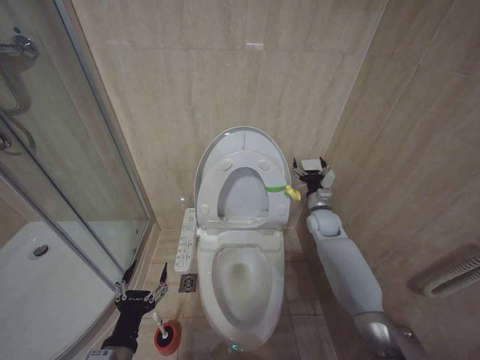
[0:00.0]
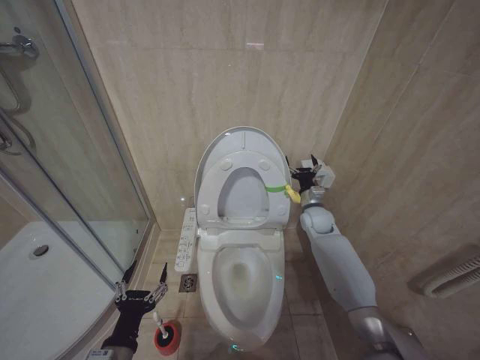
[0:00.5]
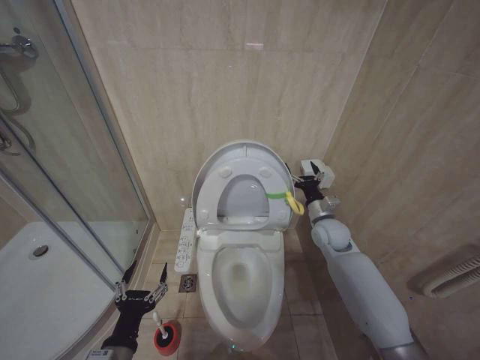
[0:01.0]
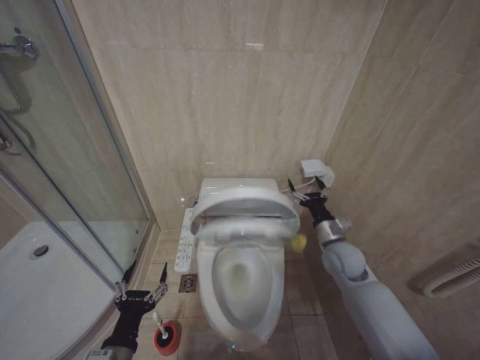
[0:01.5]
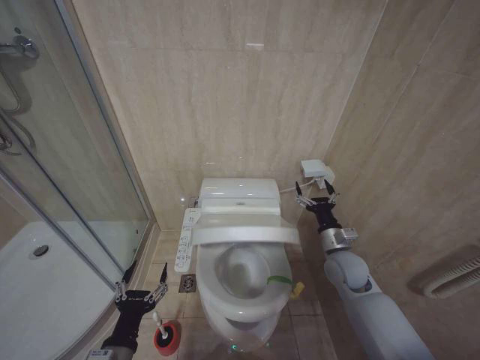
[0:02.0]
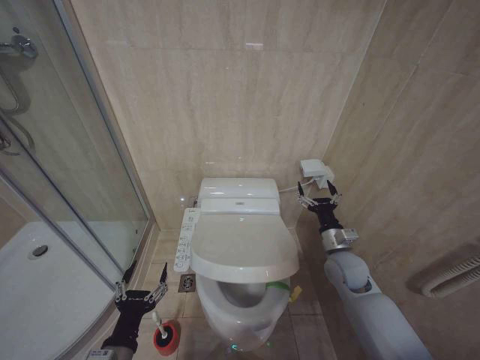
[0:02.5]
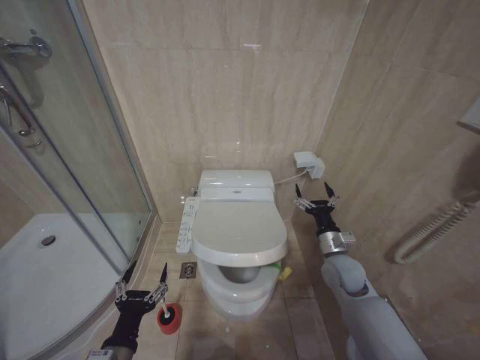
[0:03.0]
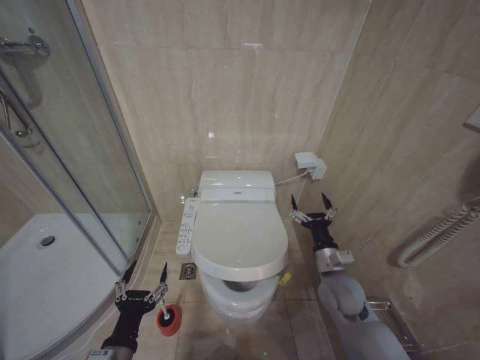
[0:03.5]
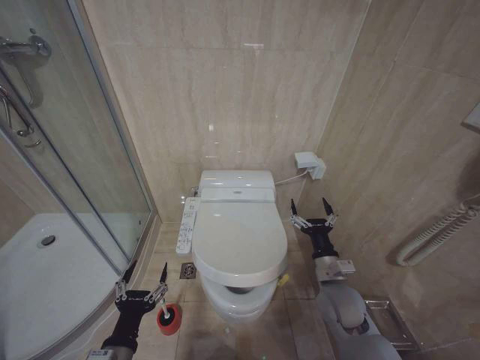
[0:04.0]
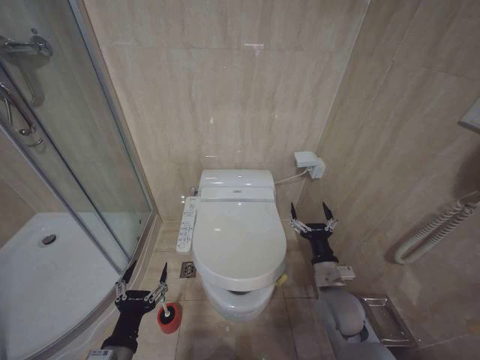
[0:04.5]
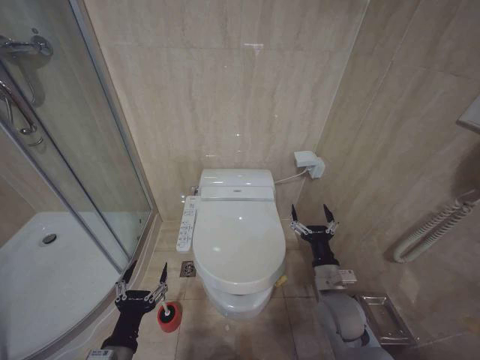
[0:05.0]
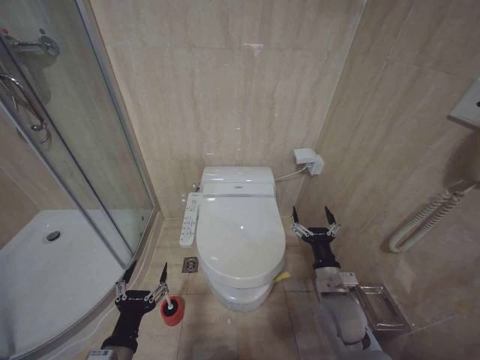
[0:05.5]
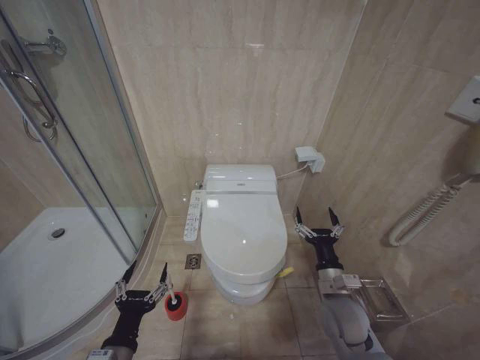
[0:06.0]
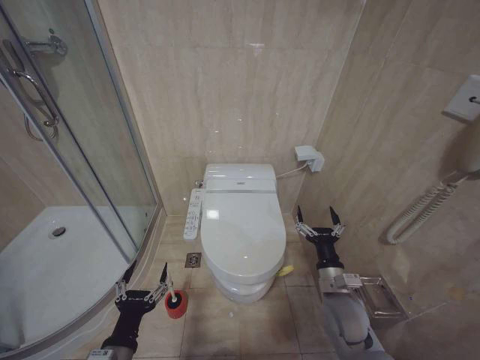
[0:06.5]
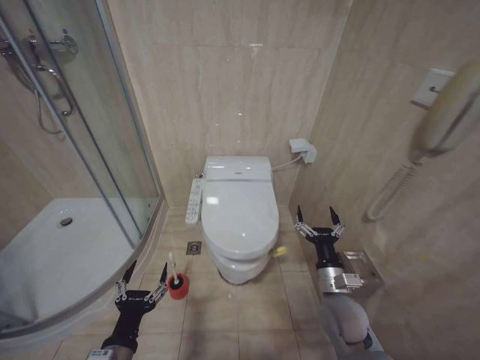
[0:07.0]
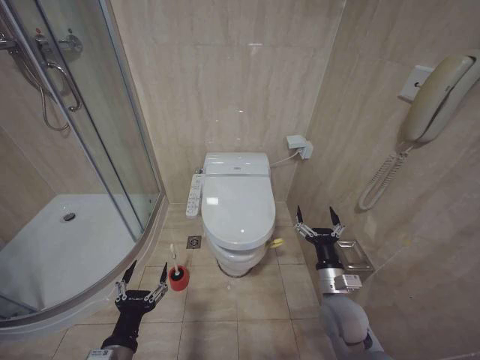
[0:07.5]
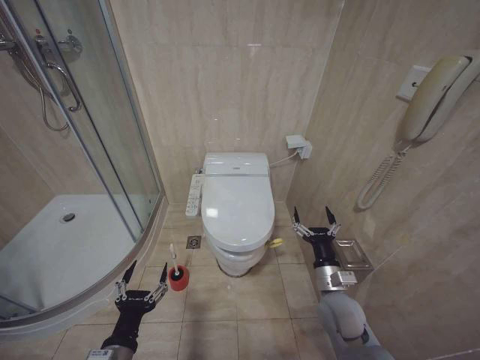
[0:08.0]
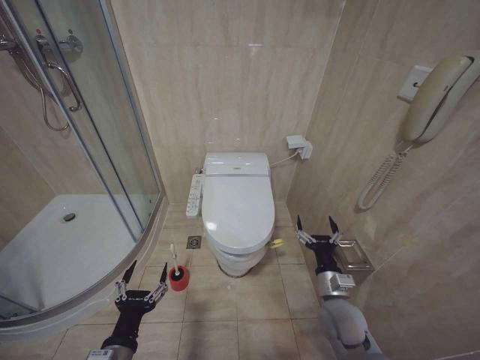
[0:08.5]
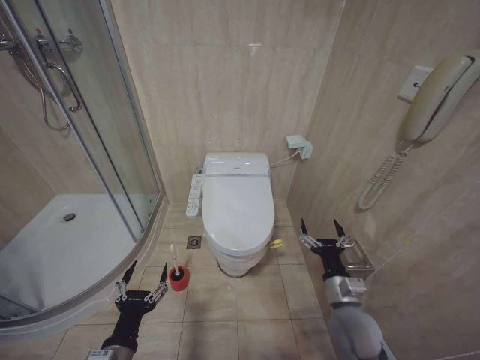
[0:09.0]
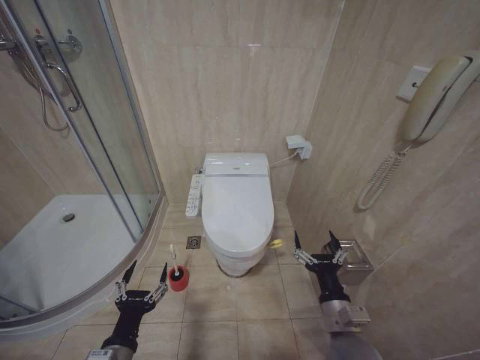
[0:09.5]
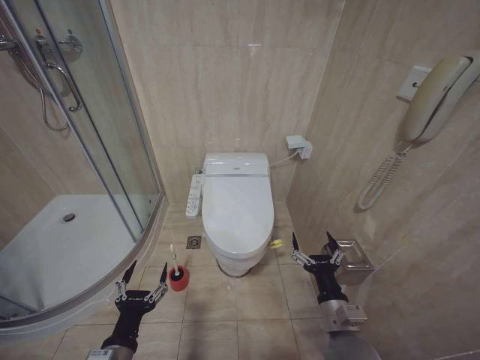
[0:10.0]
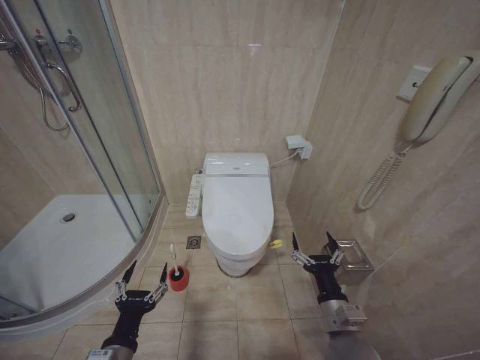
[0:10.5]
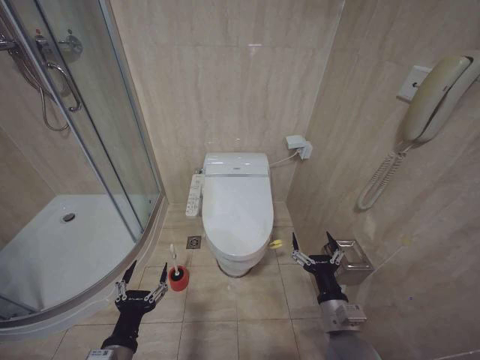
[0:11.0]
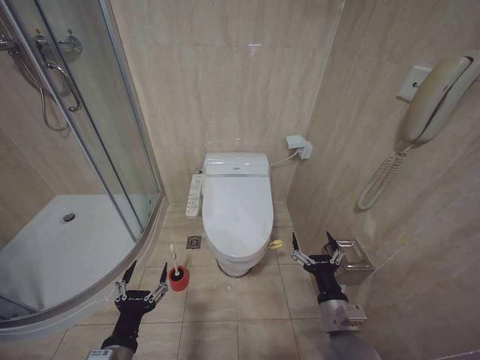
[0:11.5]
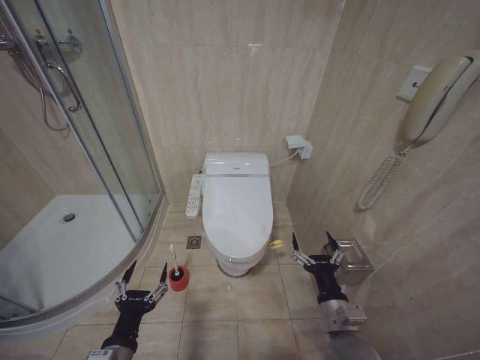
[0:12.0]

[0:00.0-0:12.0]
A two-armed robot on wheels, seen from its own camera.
Task of the whole recording: Open the toilet lid, clean the toilet bowl with a toilet brush, close the toilet lid, and flush.
0:00.0 to 0:02.0: The right gripper moves backward, roughly 15 cm.
0:02.0 to 0:04.0: The right gripper moves backward, roughly 5 cm.
0:04.0 to 0:06.0: The grippers move only a little.
0:06.0 to 0:08.0: Both grippers stay put.
0:08.0 to 0:10.0: The right gripper goes some 10 cm backward.
0:10.0 to 0:12.0: Both grippers stay put.

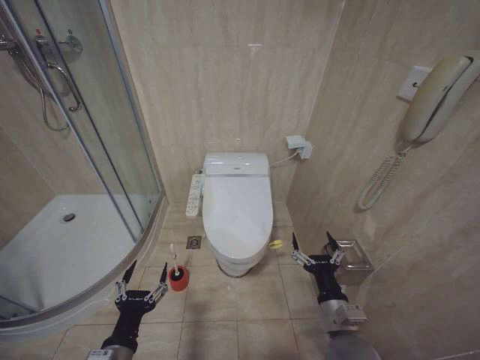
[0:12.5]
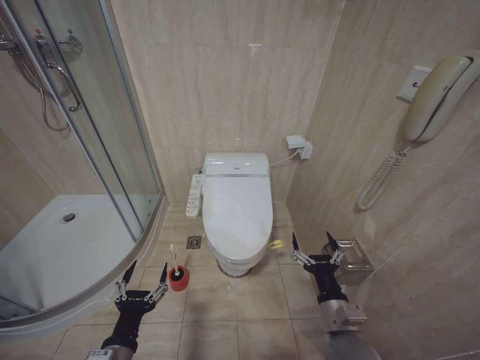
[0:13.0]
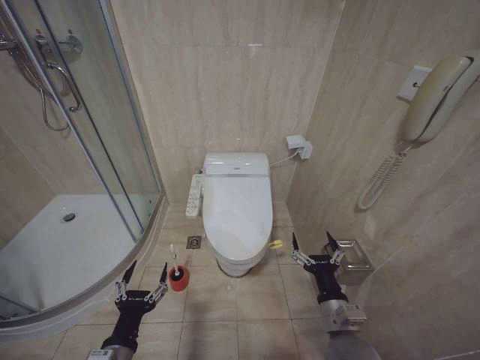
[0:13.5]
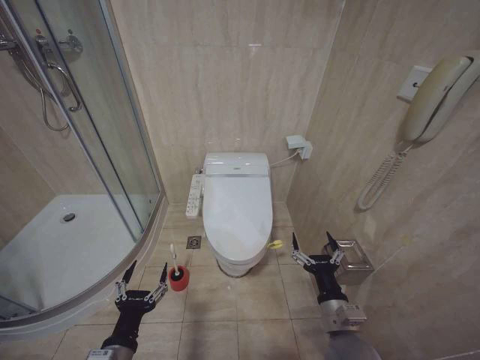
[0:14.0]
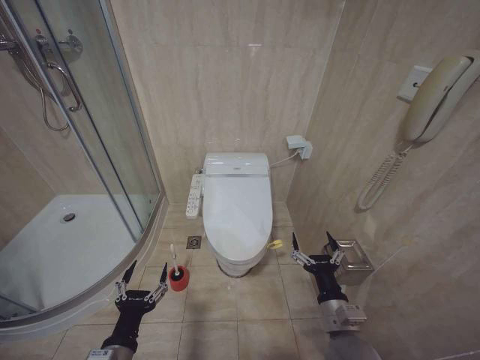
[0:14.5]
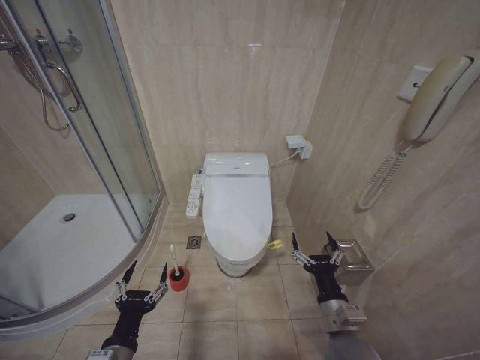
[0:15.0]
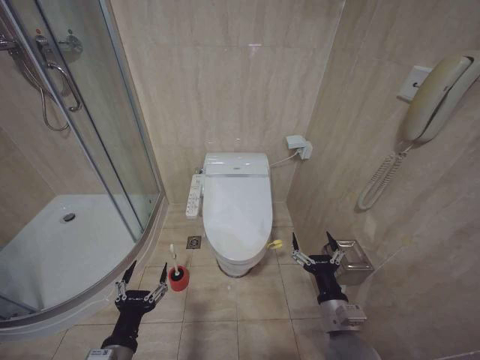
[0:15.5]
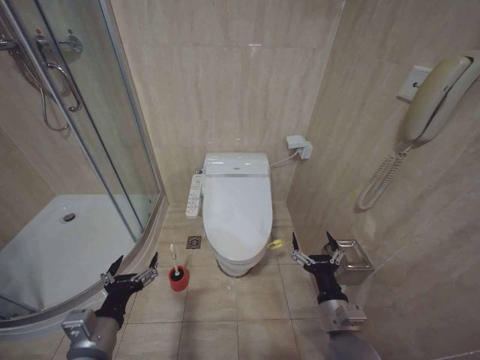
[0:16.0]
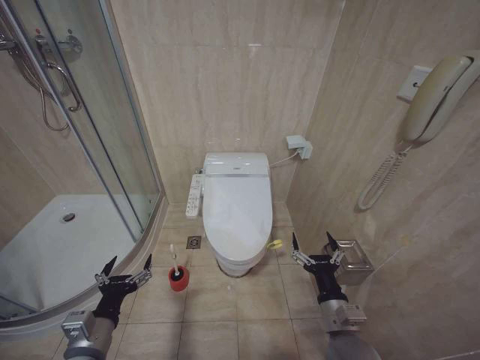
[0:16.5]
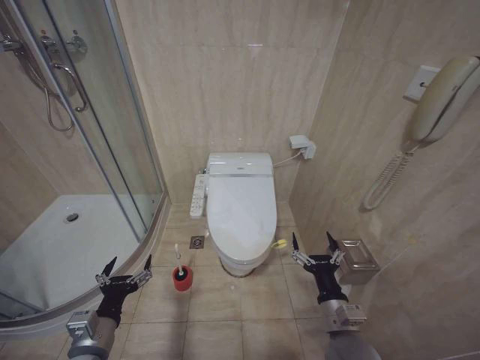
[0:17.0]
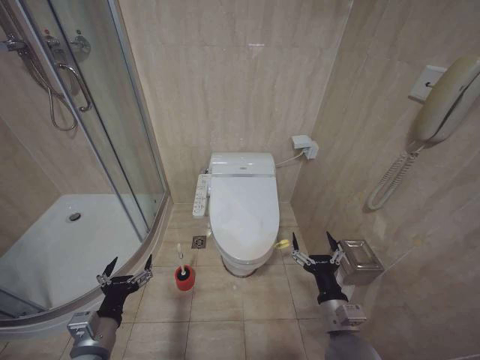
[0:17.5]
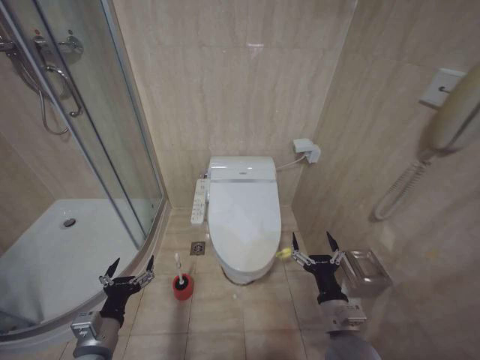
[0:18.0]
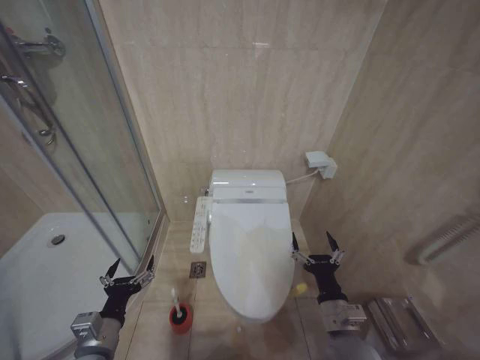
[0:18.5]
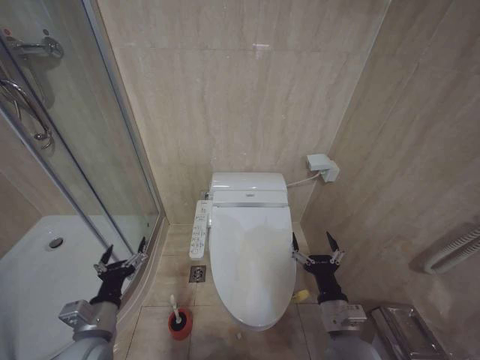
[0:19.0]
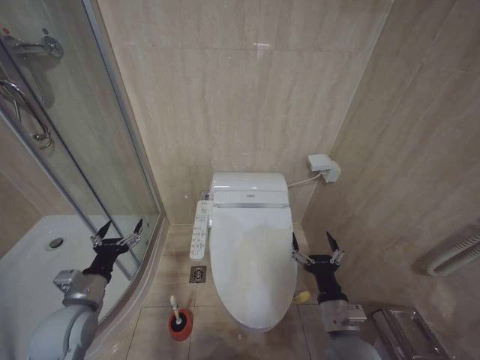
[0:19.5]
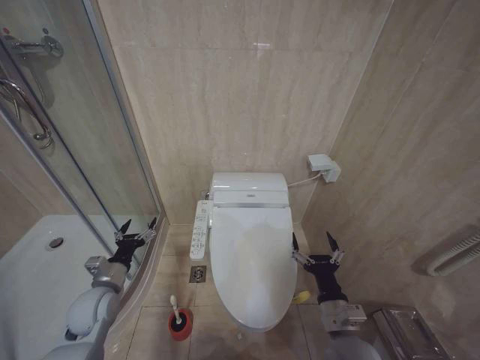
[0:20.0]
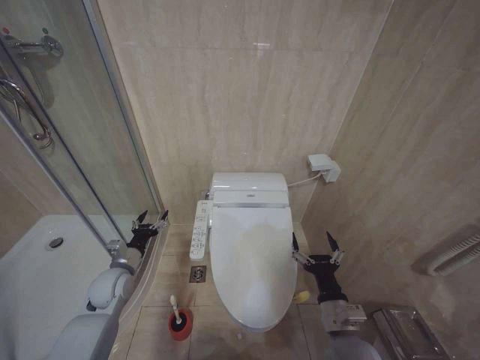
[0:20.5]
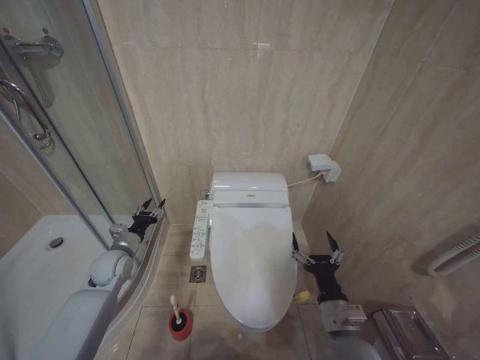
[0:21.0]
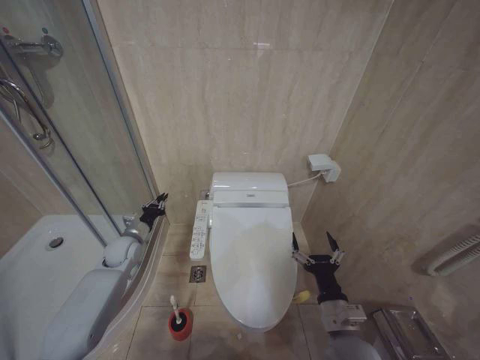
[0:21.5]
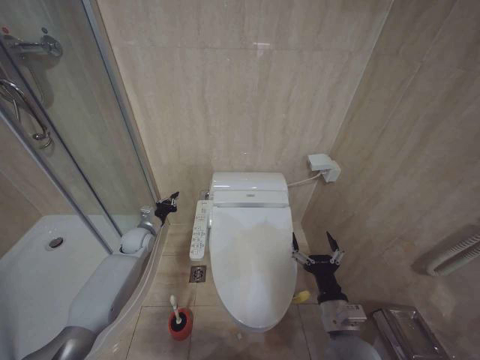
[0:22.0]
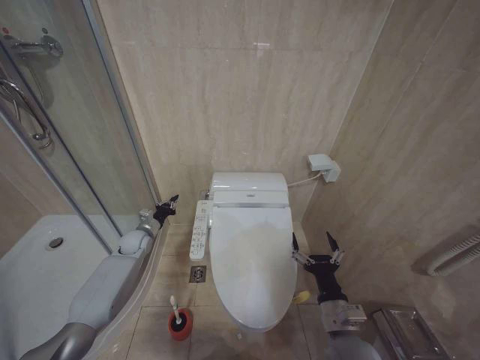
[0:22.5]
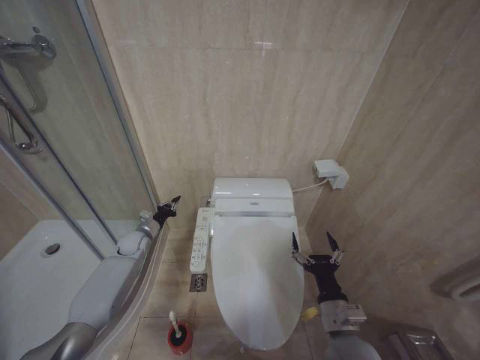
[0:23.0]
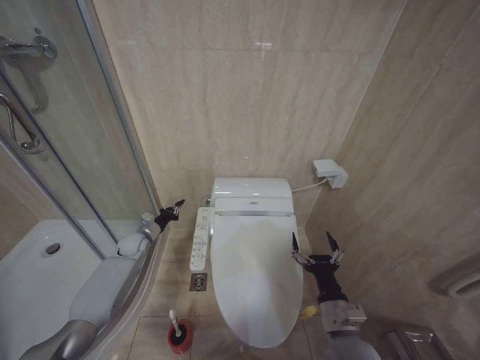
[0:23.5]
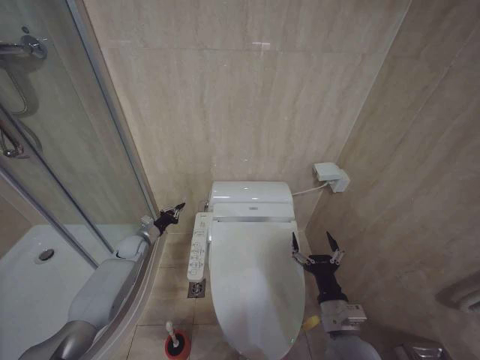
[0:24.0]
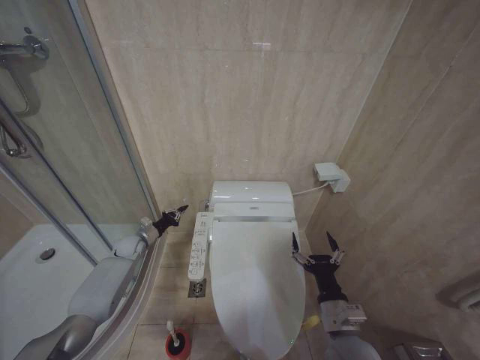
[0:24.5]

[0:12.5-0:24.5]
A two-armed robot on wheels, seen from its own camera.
Task of the whole recording: Open the toilet lid, clean the toilet bowl with a toilet brush, close the toilet lid, and flush.
0:12.5 to 0:14.5: Neither gripper changes place.
0:14.5 to 0:16.5: The left gripper goes roughly 5 cm to the left.
0:18.5 to 0:20.5: The left gripper heads forward, covering some 20 cm.
0:20.5 to 0:22.5: The left gripper travels forward by some 15 cm, and closes up.
0:22.5 to 0:24.5: The left gripper shifts by about 5 cm.

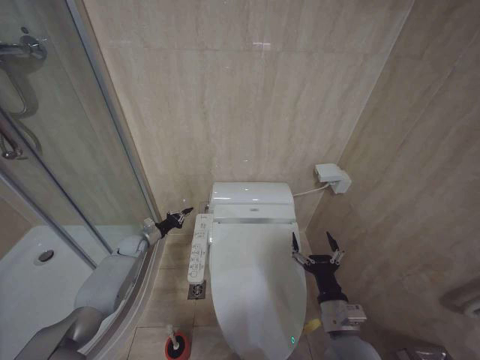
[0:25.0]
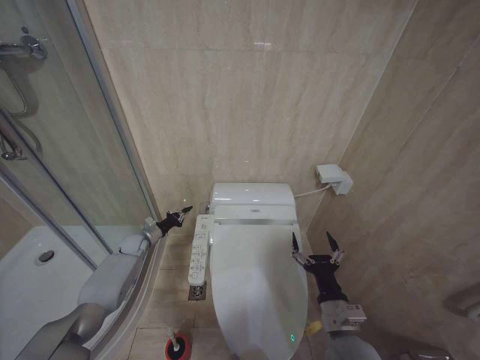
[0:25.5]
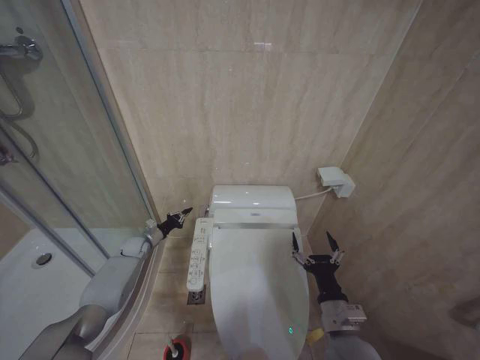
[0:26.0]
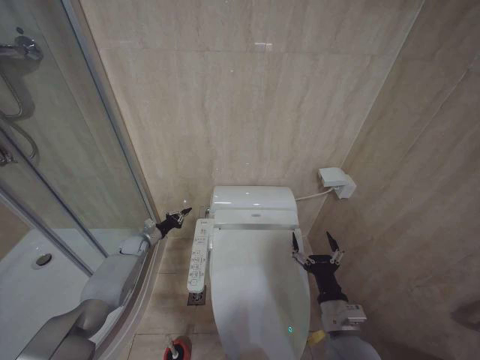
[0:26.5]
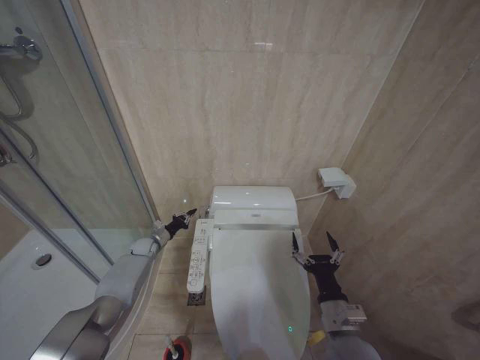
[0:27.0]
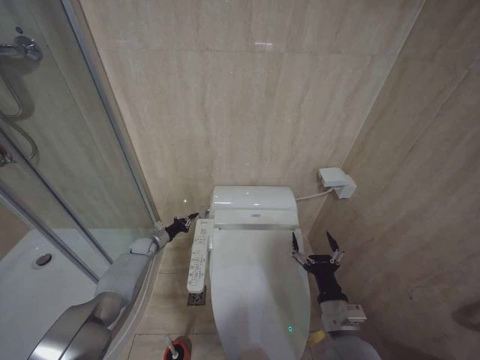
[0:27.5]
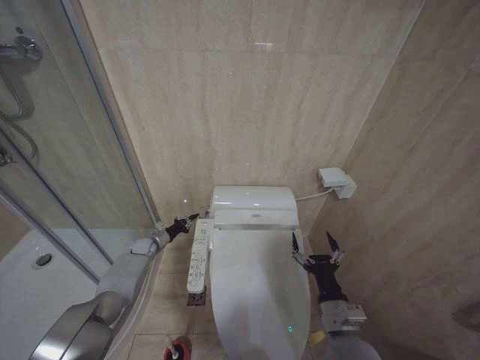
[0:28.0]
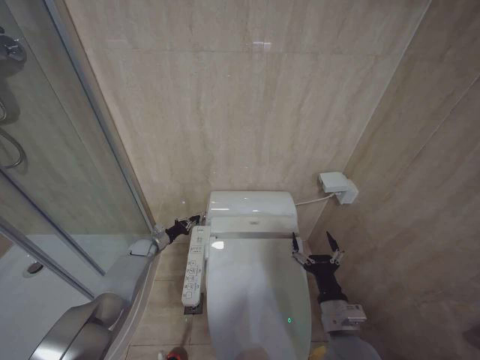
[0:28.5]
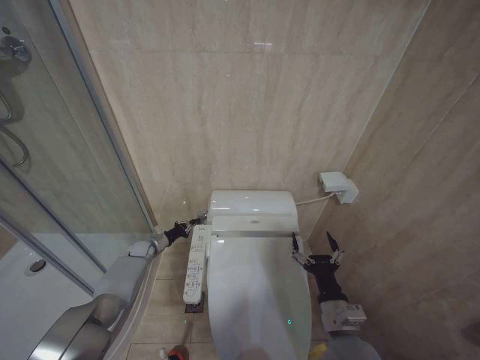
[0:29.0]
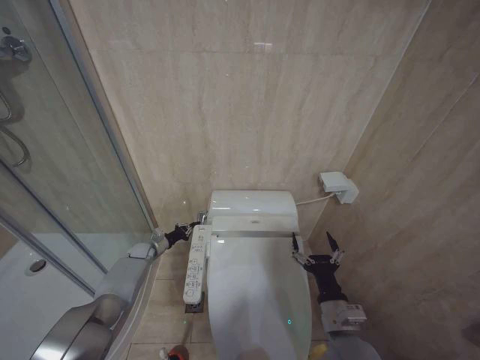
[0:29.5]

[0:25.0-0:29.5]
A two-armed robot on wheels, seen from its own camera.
Task of the whole recording: Open the toilet lid, clean the toilet bowl with a toilet brush, close the toilet lid, and flush.
0:25.0 to 0:29.5: There are only small adjustments of the grippers.
